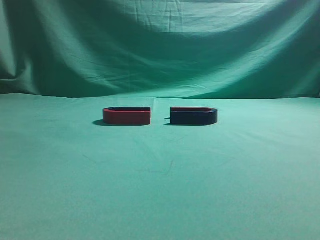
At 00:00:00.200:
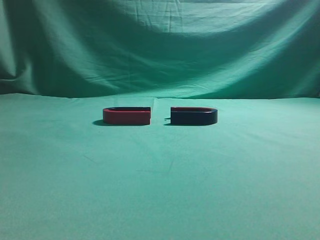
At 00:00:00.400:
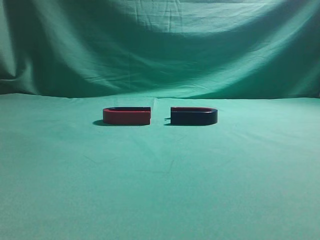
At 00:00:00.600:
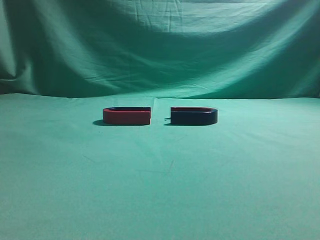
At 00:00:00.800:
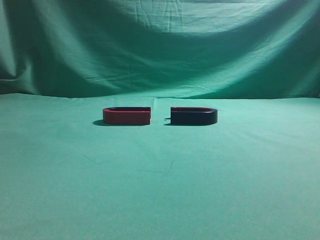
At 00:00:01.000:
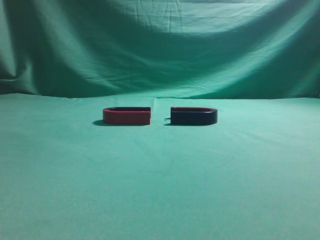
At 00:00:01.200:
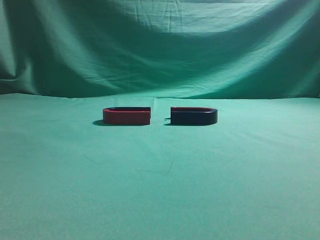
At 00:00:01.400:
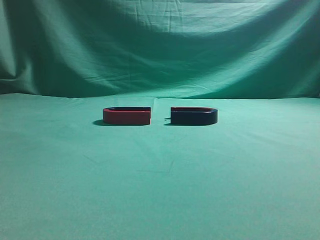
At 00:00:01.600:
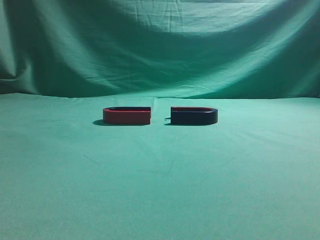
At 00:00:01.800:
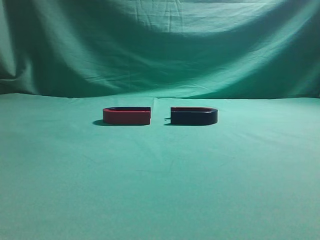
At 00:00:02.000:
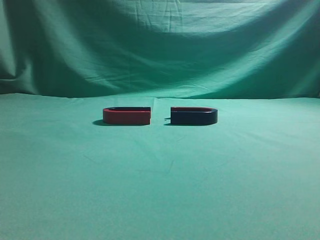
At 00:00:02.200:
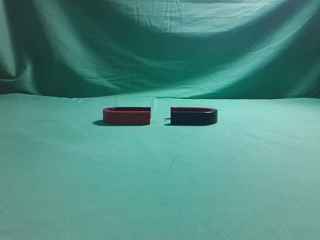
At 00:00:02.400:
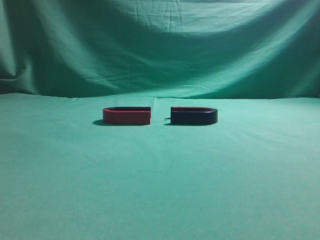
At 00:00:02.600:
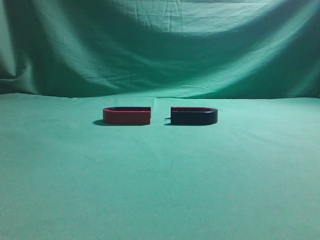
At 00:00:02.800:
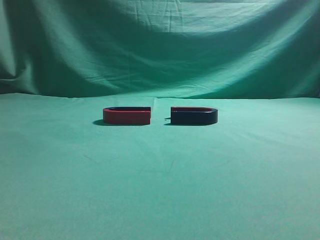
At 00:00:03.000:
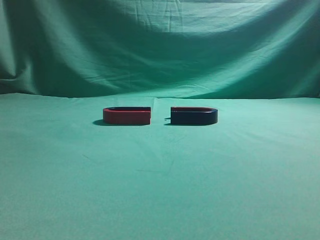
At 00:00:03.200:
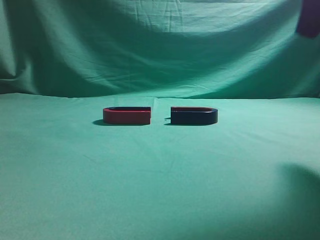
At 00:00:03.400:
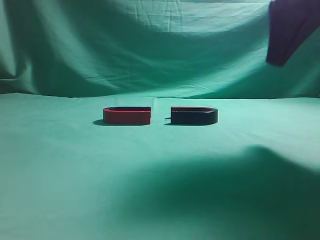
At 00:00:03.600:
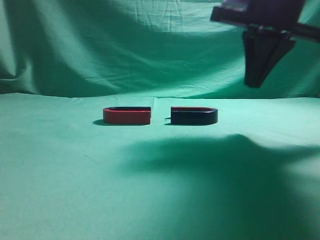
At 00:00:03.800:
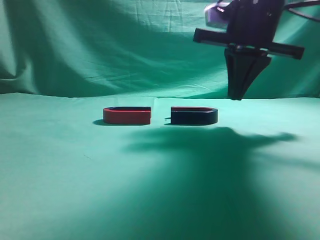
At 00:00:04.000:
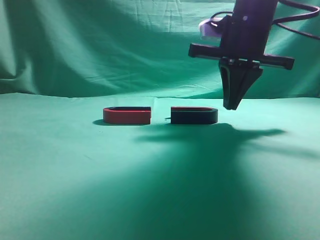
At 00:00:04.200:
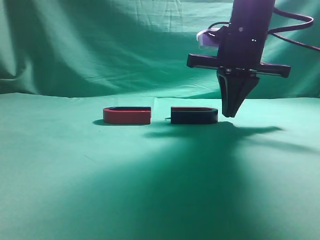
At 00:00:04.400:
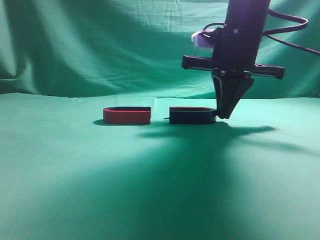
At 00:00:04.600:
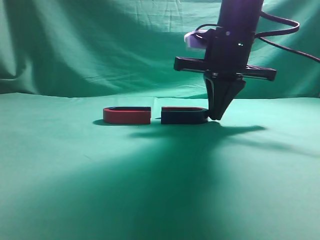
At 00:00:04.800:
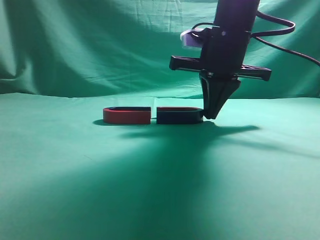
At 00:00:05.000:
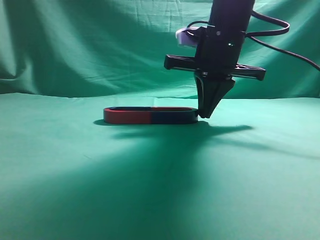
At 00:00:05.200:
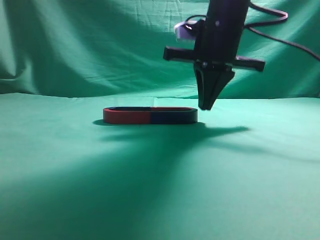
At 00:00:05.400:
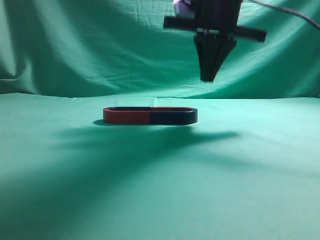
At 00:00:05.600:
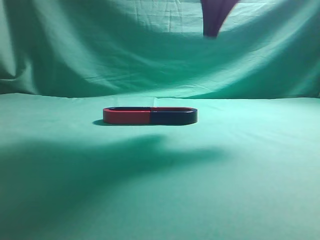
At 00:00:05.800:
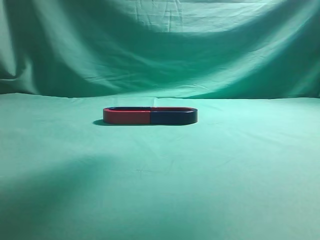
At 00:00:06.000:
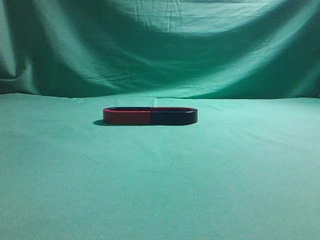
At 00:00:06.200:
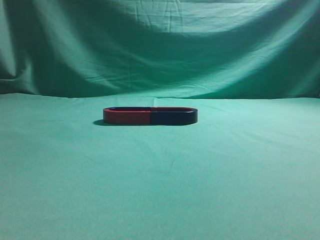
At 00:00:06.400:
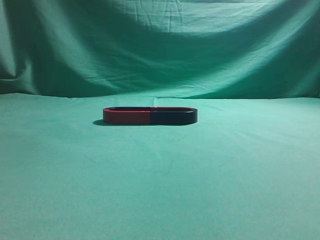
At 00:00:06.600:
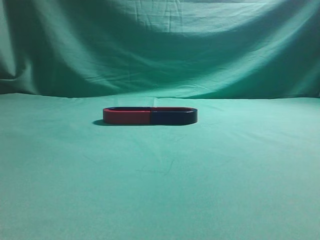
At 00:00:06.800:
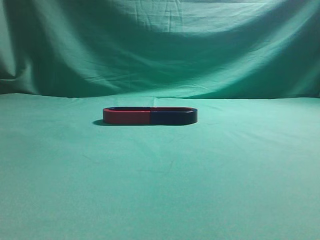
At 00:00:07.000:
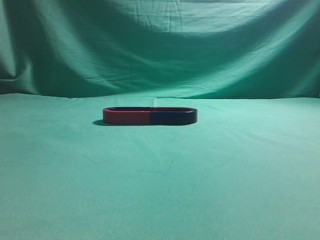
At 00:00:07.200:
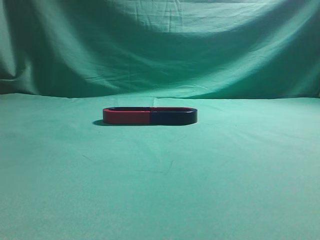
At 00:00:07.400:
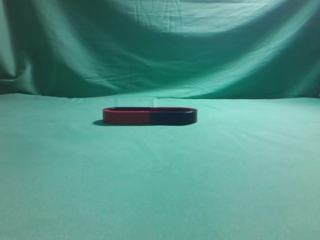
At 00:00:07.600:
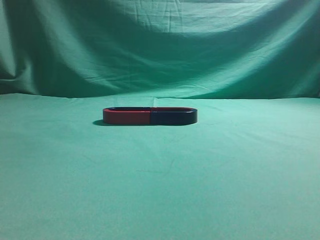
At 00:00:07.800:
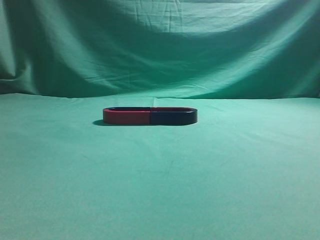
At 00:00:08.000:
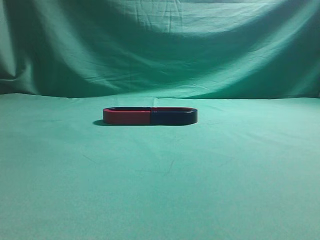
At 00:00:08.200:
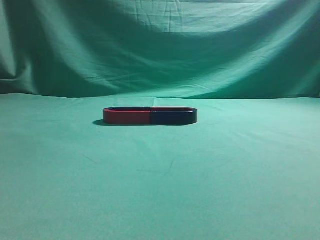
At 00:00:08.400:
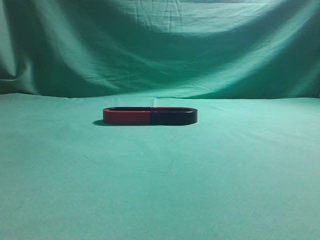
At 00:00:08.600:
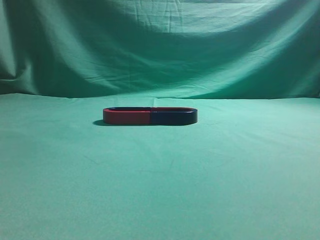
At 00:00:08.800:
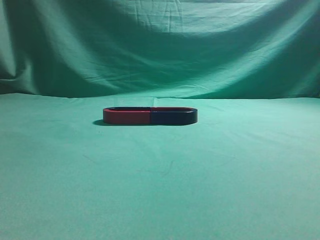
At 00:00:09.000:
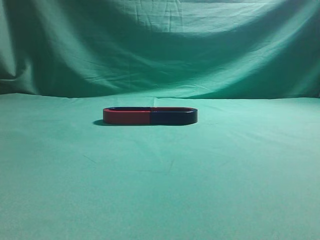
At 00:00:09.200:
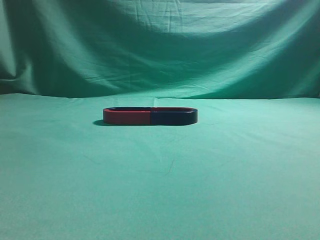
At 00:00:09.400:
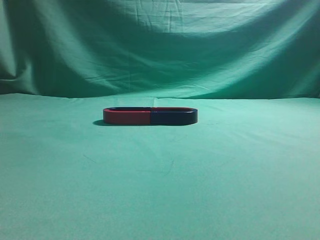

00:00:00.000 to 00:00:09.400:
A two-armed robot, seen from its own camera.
Task of the whole recording: push the magnet on the table from its original position to another position.
Step, 00:00:00.000 to 00:00:05.000: Push the magnet on the right to connect the magnet on the left.
00:00:01.600 to 00:00:03.200: The right gripper heads forward and to the left, covering some 20 cm.
00:00:03.200 to 00:00:04.800: The right gripper goes about 20 cm forward, downward and to the left.
00:00:04.800 to 00:00:06.200: The right gripper goes roughly 30 cm upward and backward.

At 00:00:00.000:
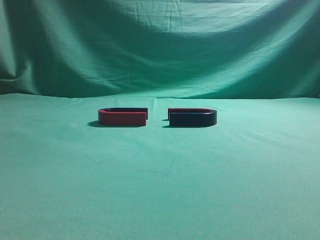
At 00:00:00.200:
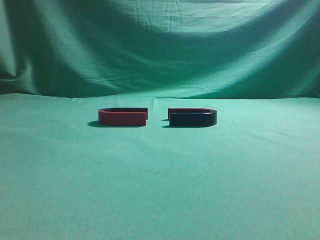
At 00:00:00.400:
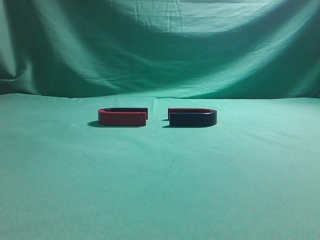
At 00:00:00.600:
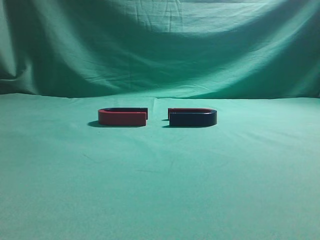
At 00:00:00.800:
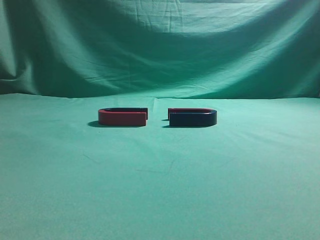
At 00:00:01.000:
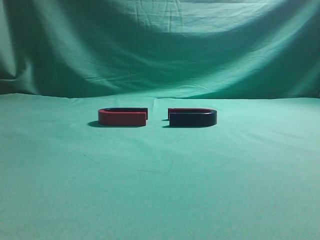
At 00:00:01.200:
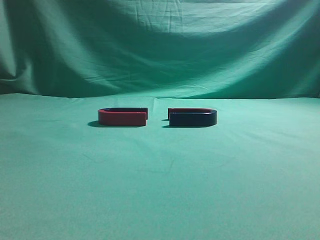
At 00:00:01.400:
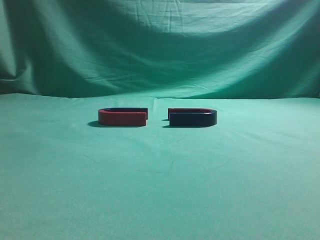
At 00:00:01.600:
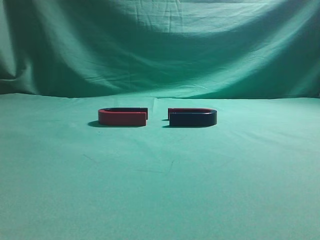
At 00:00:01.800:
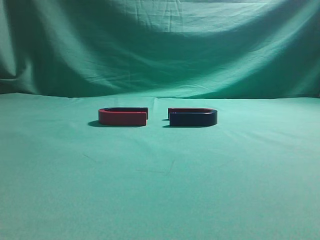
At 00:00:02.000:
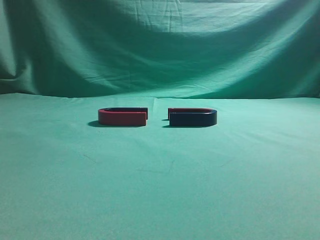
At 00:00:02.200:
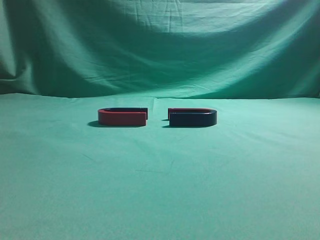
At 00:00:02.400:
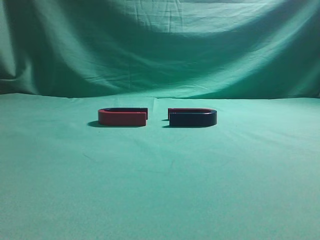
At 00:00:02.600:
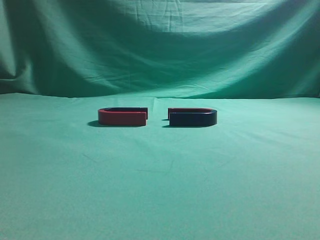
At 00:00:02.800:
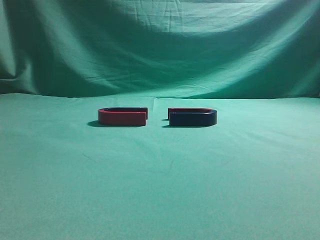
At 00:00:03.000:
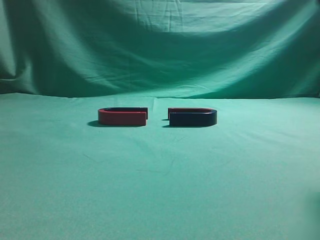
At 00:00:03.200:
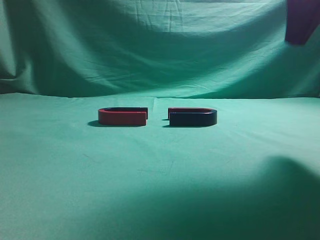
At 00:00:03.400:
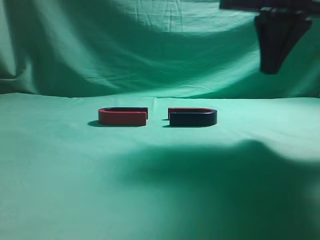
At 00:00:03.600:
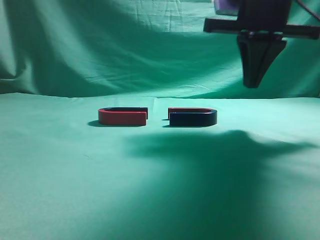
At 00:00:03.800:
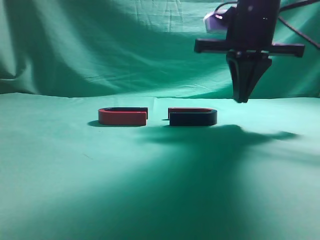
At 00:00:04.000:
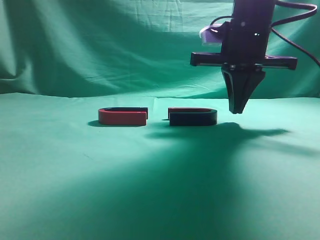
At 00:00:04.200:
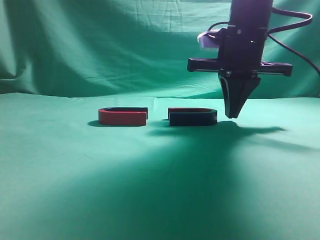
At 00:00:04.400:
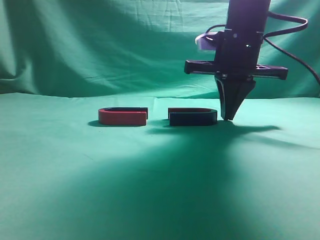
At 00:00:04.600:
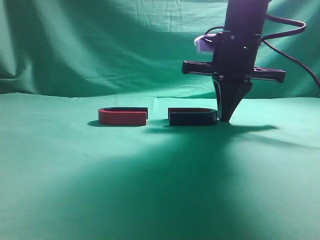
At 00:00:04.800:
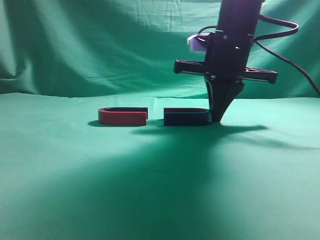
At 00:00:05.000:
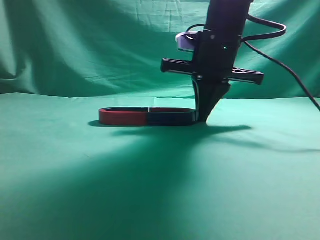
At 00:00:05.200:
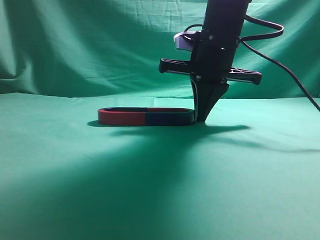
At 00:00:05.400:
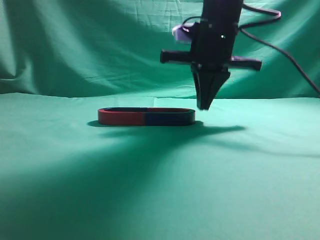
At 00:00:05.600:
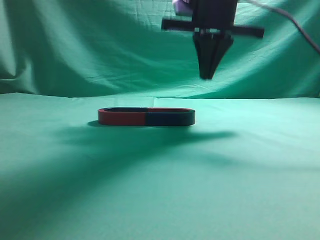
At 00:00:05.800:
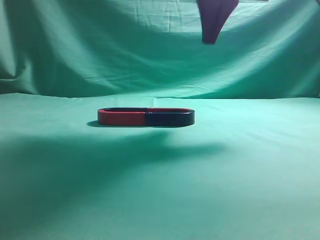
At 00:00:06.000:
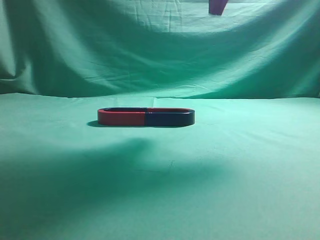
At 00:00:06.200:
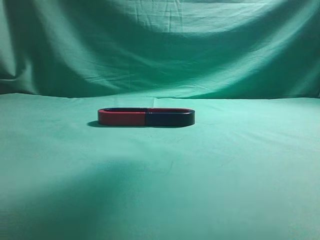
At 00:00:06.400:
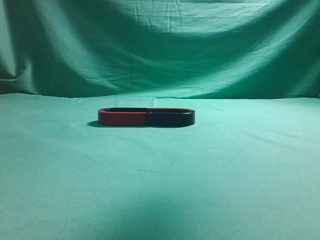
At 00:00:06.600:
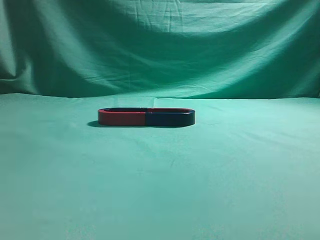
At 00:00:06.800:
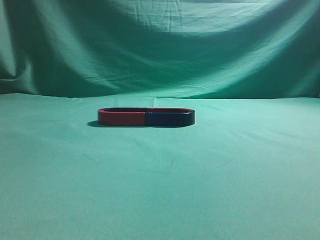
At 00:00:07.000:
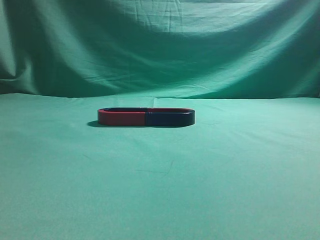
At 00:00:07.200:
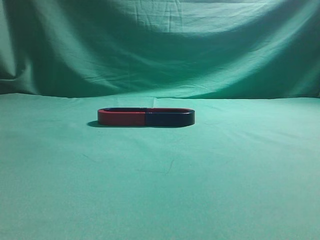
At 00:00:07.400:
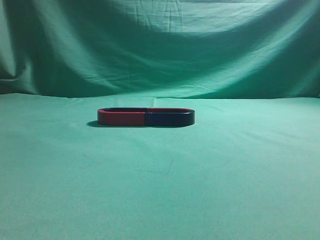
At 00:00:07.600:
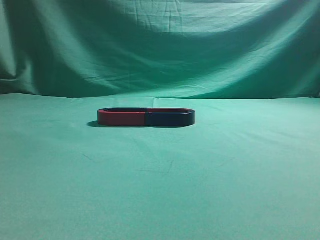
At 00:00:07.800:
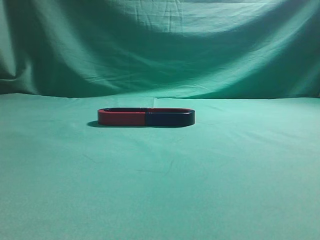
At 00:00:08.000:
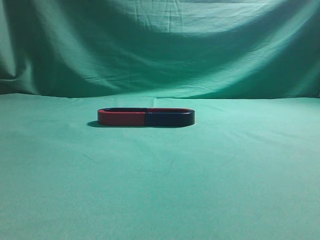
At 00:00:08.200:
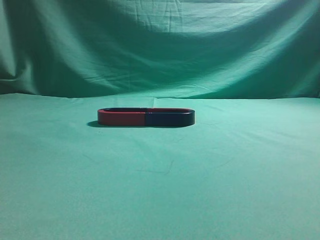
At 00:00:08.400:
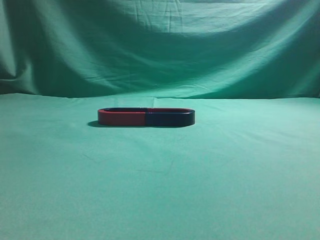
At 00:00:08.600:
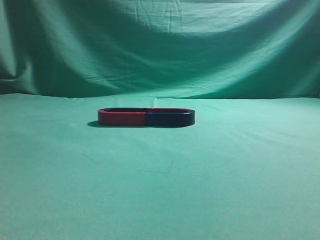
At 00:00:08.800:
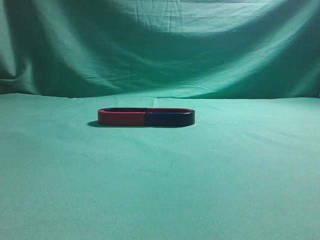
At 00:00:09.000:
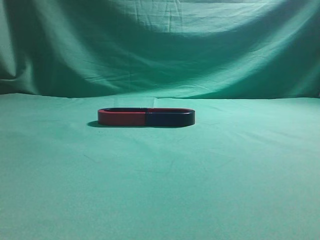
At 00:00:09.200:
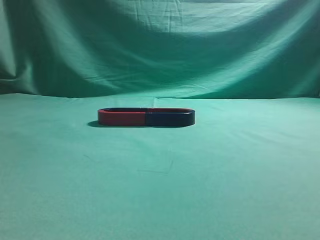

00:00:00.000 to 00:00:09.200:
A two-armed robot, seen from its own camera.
Task of the whole recording: push the magnet on the table from its original position to another position.
Step, 00:00:00.000 to 00:00:05.400: Push the magnet on the right to connect the magnet on the left.
00:00:03.000 to 00:00:04.600: The right gripper goes some 25 cm forward, downward and to the left.
00:00:04.600 to 00:00:06.200: The right gripper travels upward by approximately 20 cm.
00:00:06.200 to 00:00:07.600: The right gripper heads backward and to the right, covering some 30 cm.
